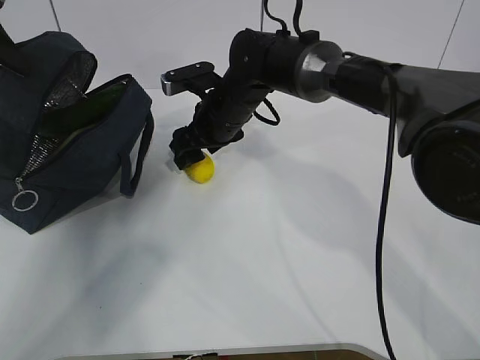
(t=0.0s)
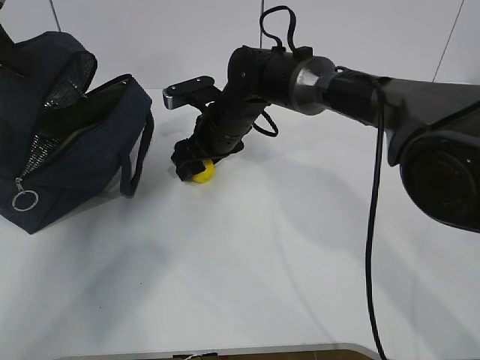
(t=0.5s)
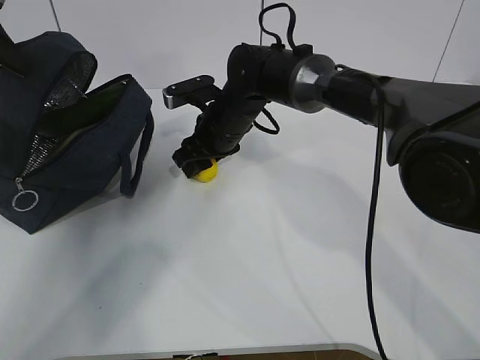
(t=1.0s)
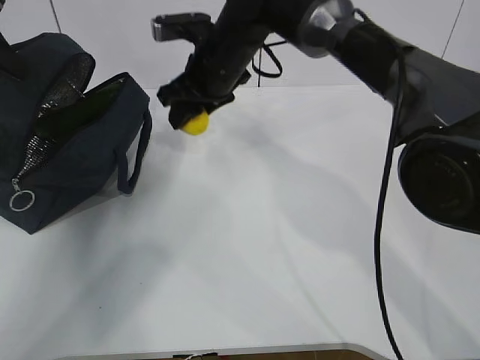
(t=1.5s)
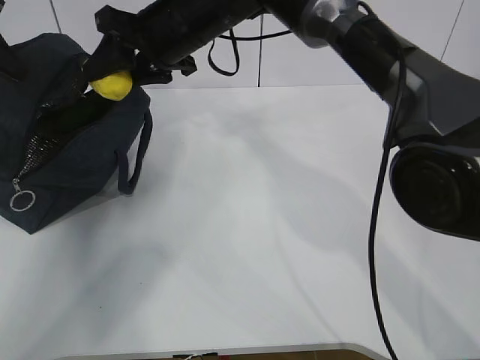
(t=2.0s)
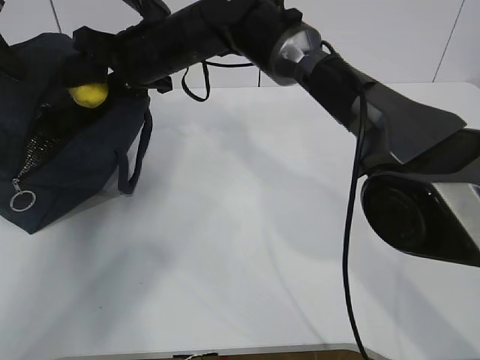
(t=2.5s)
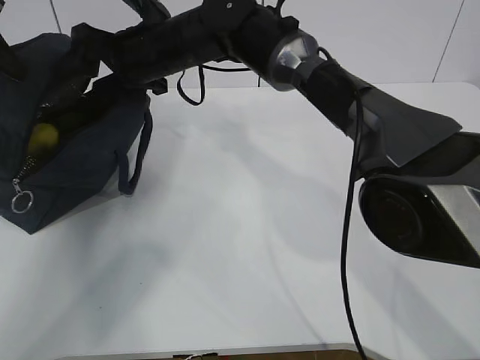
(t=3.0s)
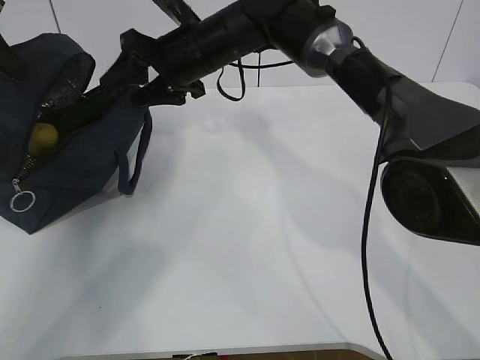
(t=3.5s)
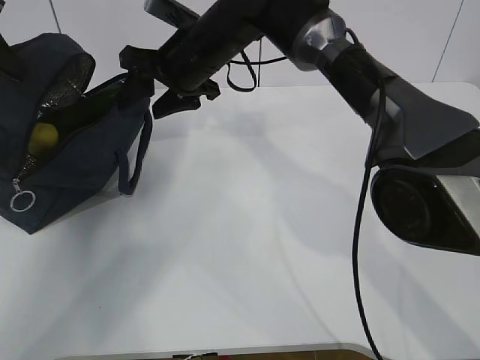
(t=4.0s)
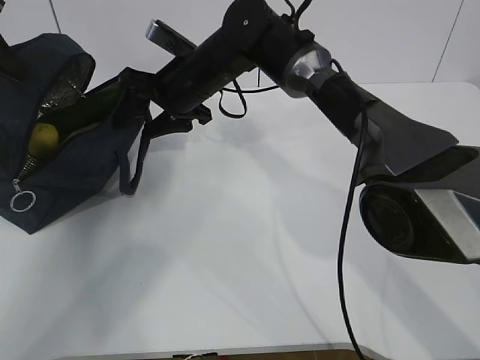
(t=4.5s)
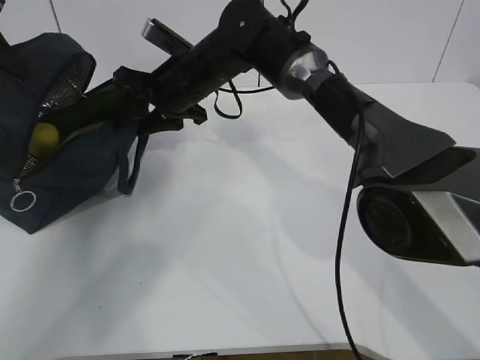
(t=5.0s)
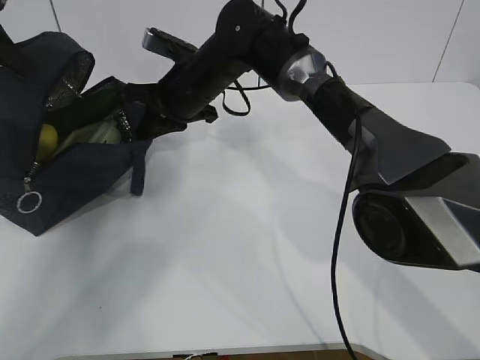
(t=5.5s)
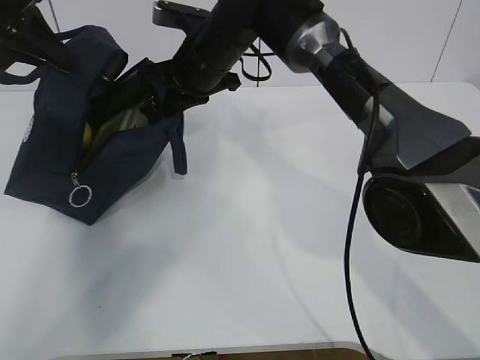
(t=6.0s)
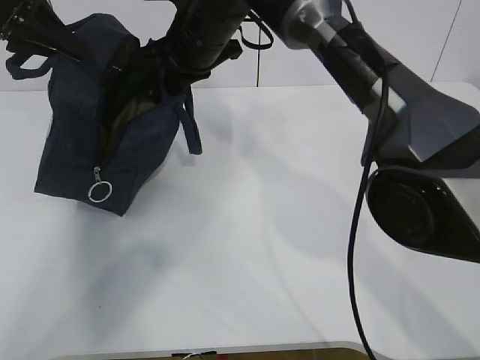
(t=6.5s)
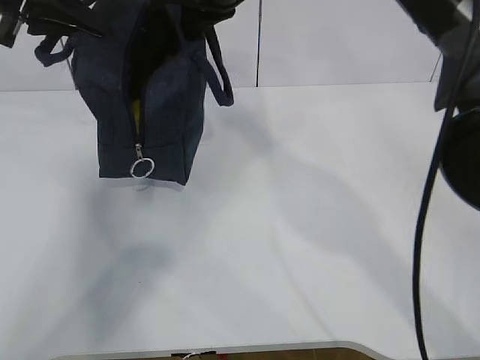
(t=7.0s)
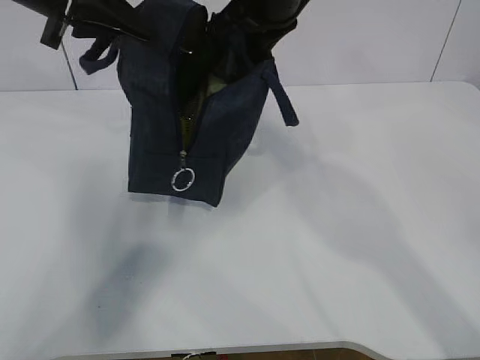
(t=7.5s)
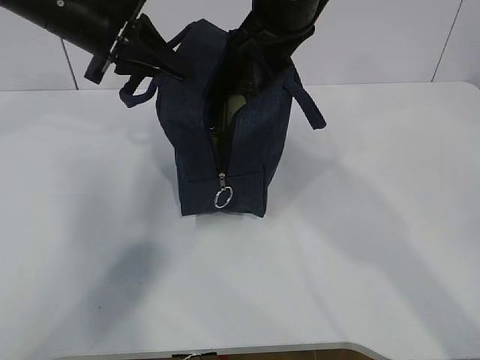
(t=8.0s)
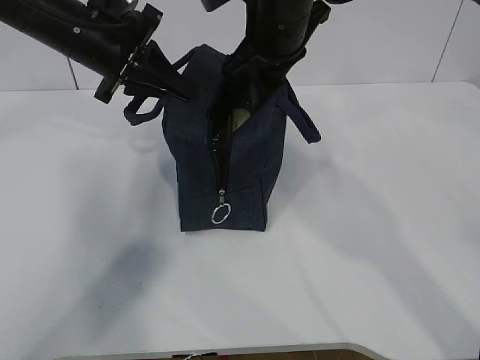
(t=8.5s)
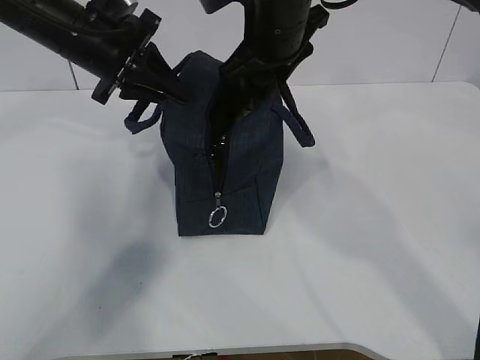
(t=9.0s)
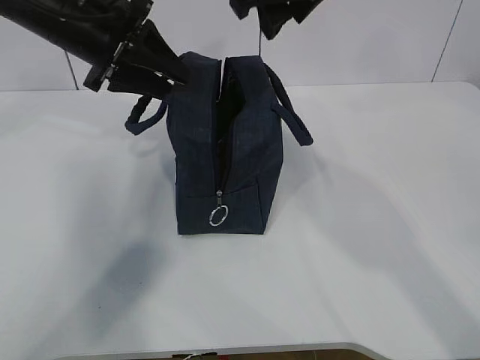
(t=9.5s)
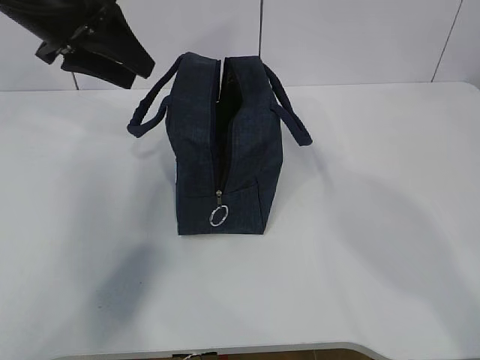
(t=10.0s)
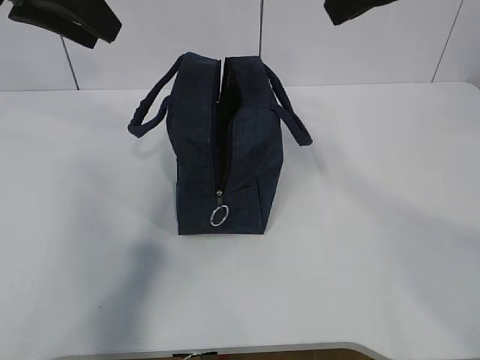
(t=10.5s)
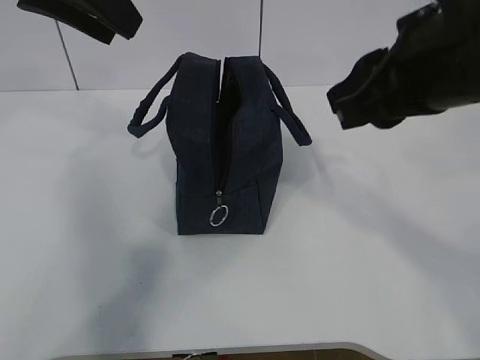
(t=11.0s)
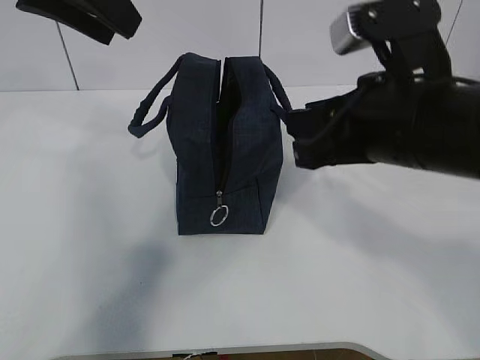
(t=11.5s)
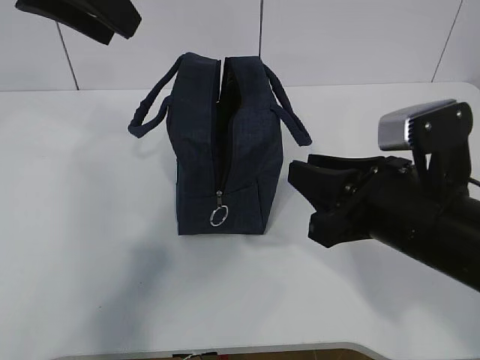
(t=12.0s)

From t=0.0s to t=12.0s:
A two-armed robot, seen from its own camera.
Step, from t=0.0s to t=2.5s: Move the lunch bag to the right.
From t=0.0s to t=2.0s: The right gripper heads upward, covering roughly 10 cm, and closes its fingers.
From t=2.0s to t=4.0s: The grippers stay close to where they were, moving slightly.
From t=4.0s to t=6.0s: The right gripper closes, while the left gripper moves to the right, approximately 5 cm.
From t=6.0s to t=8.0s: The right gripper goes roughly 15 cm upward, to the right and backward, while the left gripper heads to the right, covering some 10 cm.
From t=8.0s to t=10.0s: The right gripper is displaced upward and backward by roughly 10 cm, and opens up, while the left gripper opens.
From t=10.0s to t=12.0s: The left gripper travels upward and backward by roughly 10 cm, while the right gripper goes approximately 25 cm downward and backward.

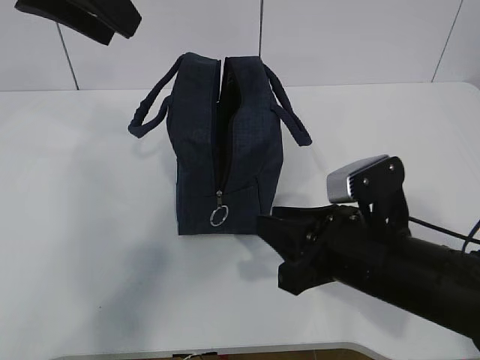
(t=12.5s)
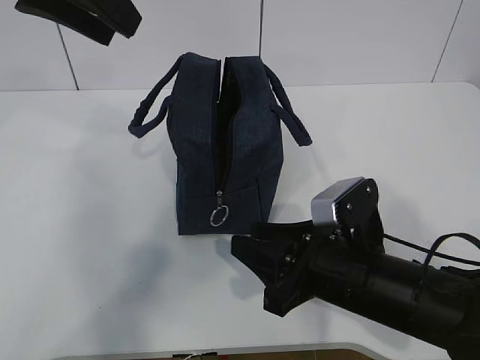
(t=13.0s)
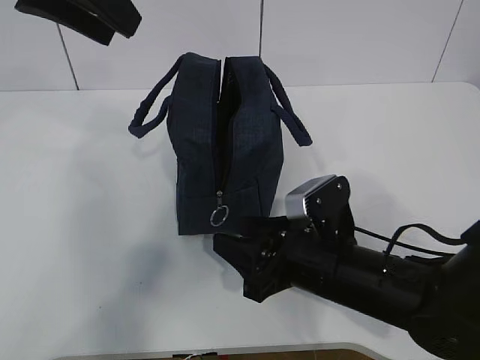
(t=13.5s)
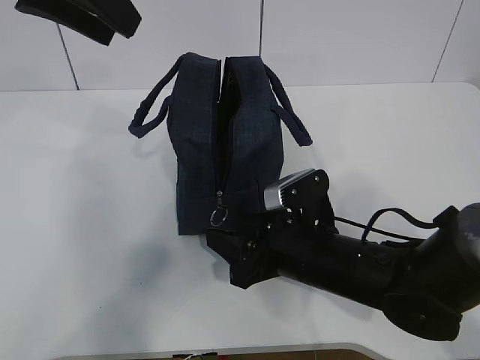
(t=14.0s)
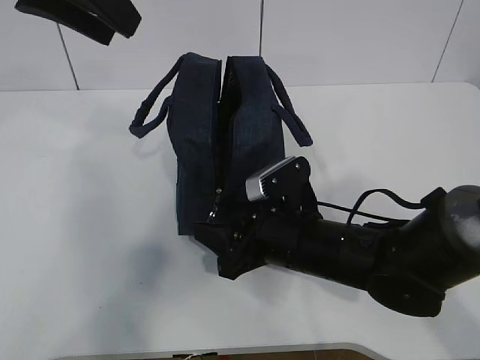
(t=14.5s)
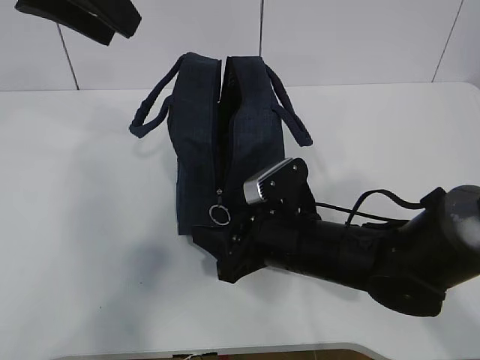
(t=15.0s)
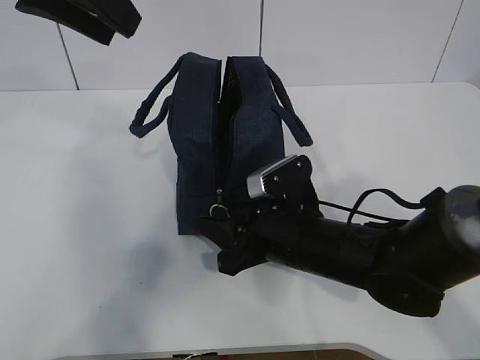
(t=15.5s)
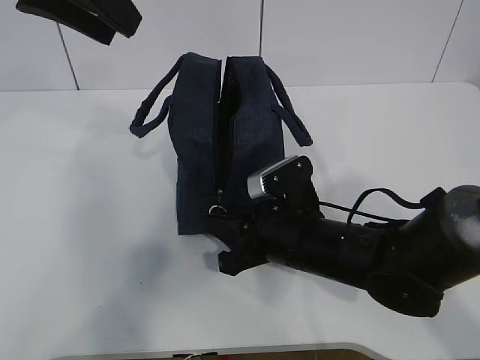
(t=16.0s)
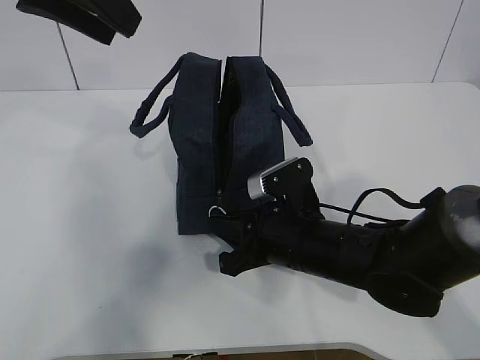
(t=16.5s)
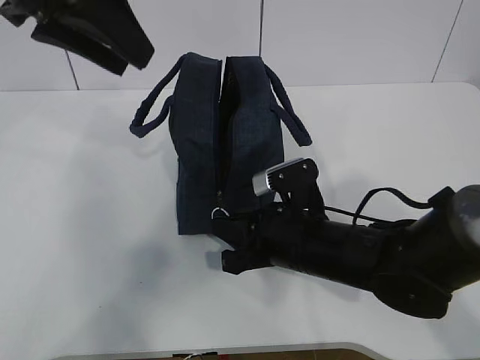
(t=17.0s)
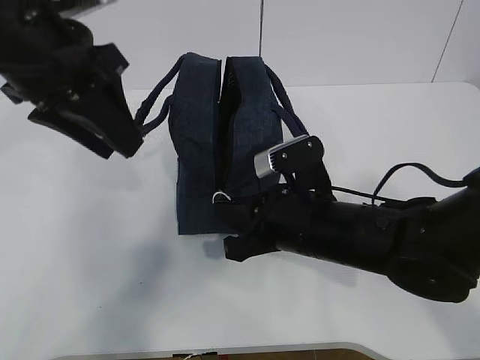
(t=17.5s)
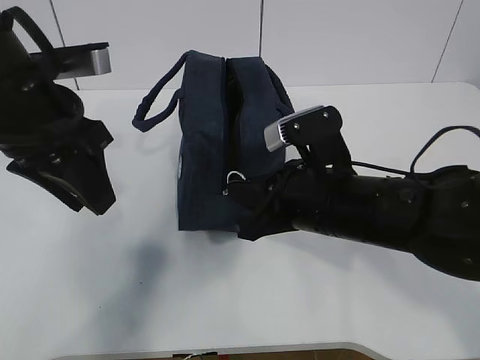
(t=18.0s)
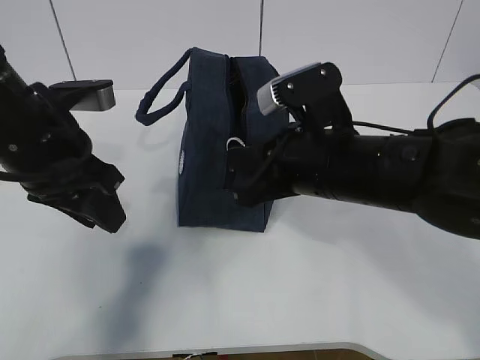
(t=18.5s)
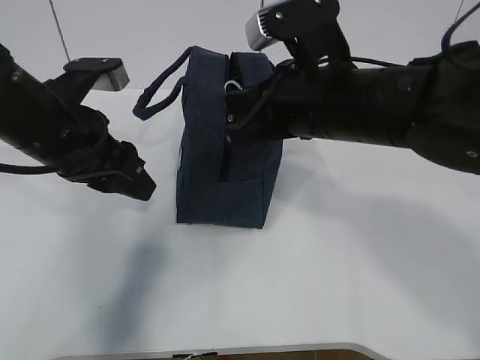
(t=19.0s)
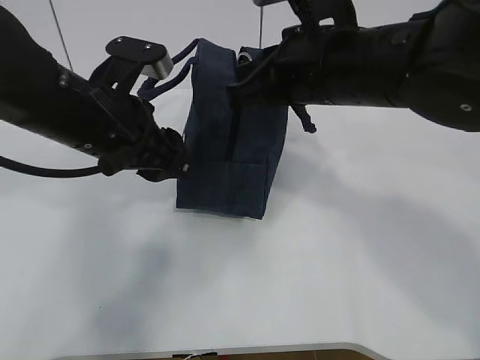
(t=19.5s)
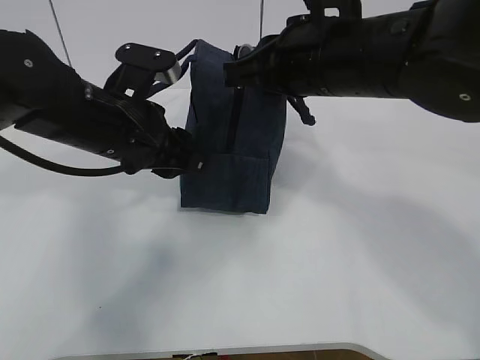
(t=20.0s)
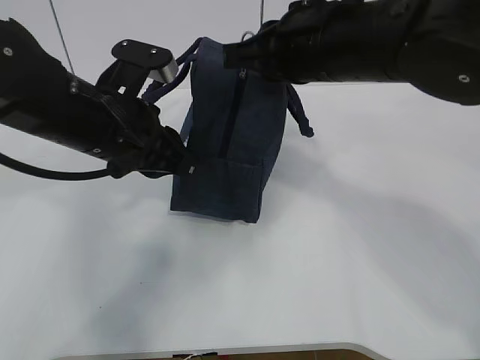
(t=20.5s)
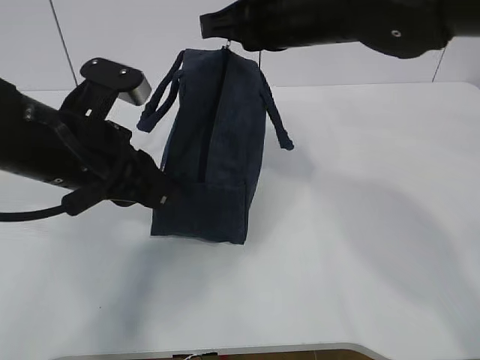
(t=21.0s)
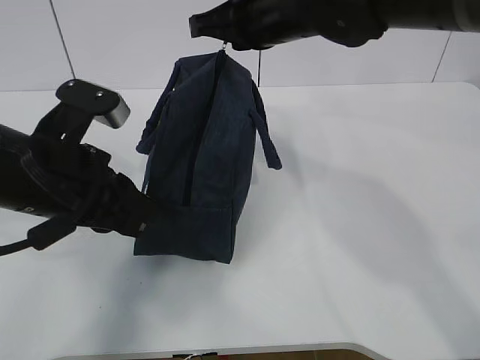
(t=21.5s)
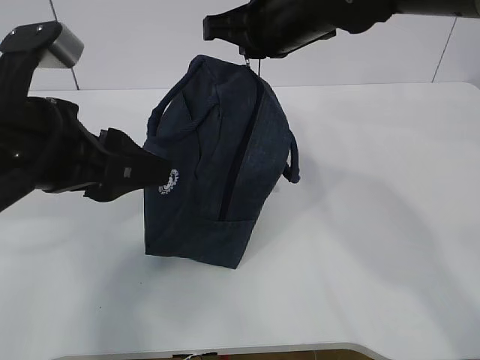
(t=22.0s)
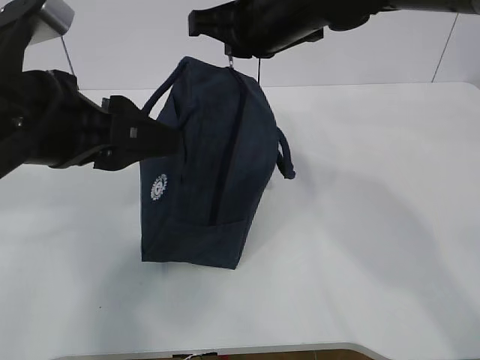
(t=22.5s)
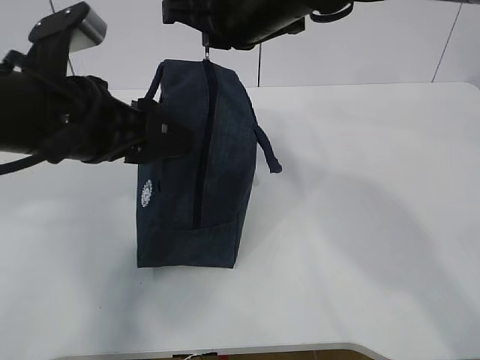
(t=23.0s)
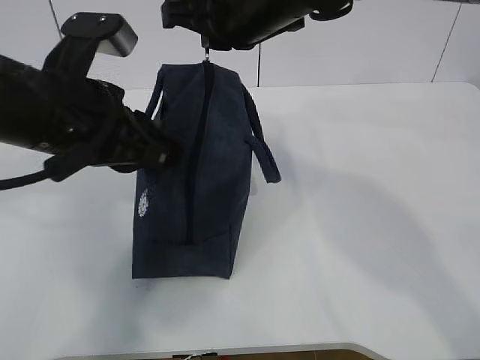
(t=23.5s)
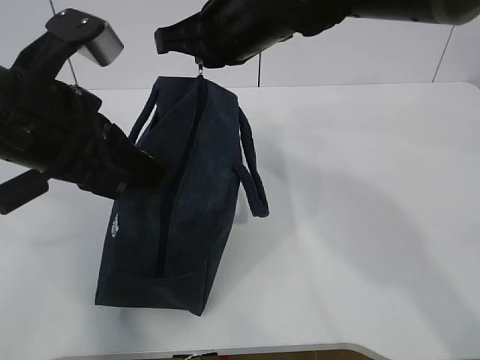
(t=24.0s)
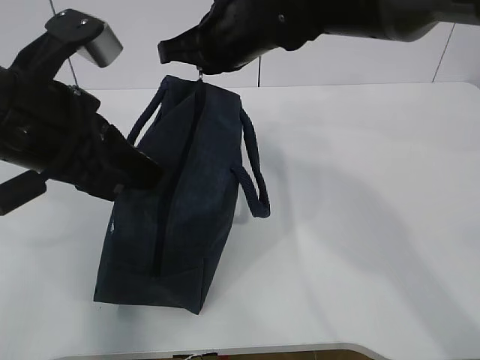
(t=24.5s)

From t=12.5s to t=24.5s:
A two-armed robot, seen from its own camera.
Step, from t=13.0s to t=23.0s: Pull the zipper with your right hand.
From t=12.5s to t=14.5s: The right gripper moves forward and to the left, about 10 cm.
From t=14.5s to t=16.5s: The right gripper closes its fingers.
From t=16.5s to t=18.5s: The right gripper moves upward, some 10 cm; the left gripper travels downward by approximately 15 cm.
From t=18.5s to t=20.5s: The right gripper shifts approximately 10 cm upward, while the left gripper travels to the right by some 5 cm, and closes.
From t=20.5s to t=22.5s: The left gripper heads backward and upward, covering some 10 cm, and opens up. The right gripper is displaced forward by some 5 cm.
From t=22.5s to t=24.5s: The left gripper closes.

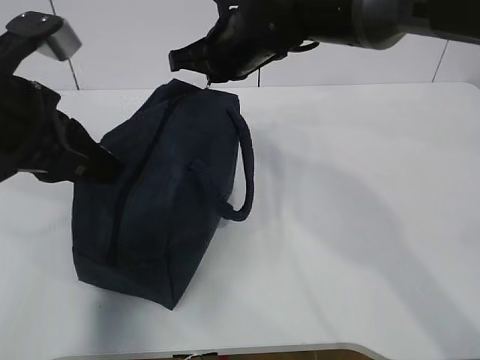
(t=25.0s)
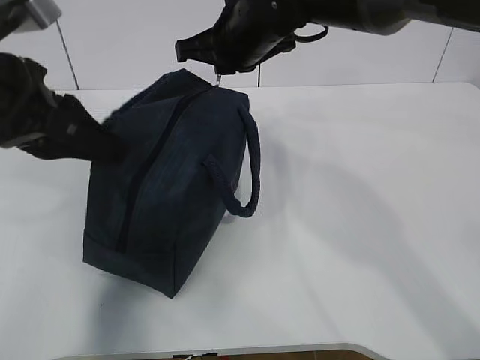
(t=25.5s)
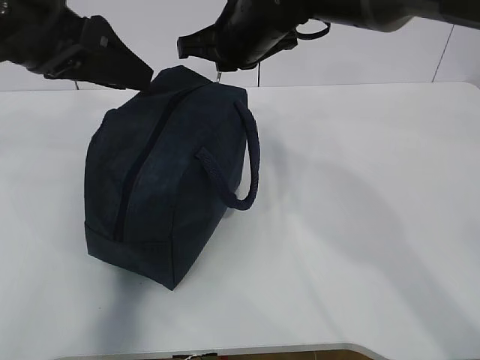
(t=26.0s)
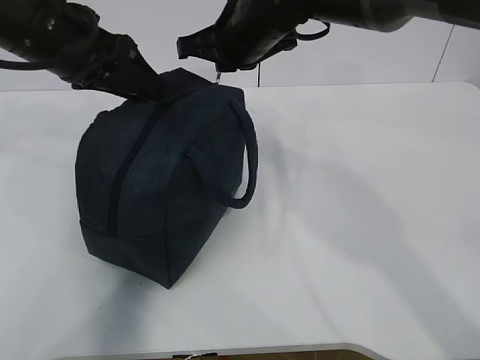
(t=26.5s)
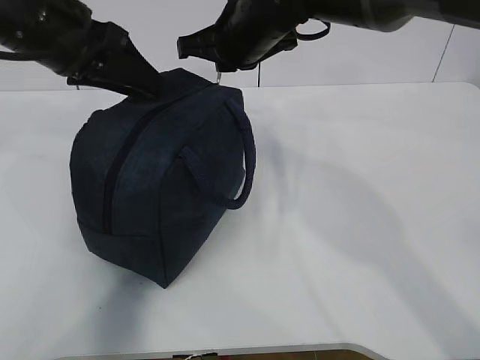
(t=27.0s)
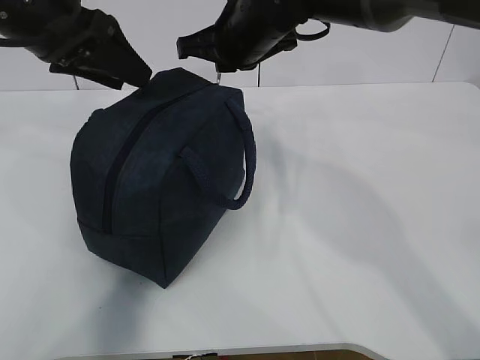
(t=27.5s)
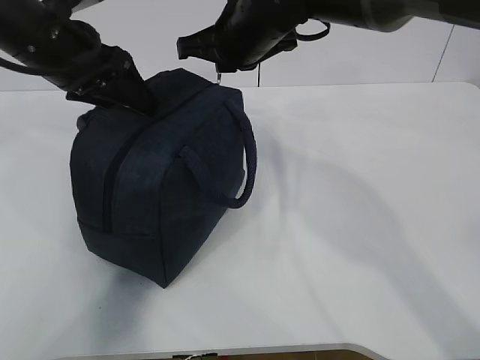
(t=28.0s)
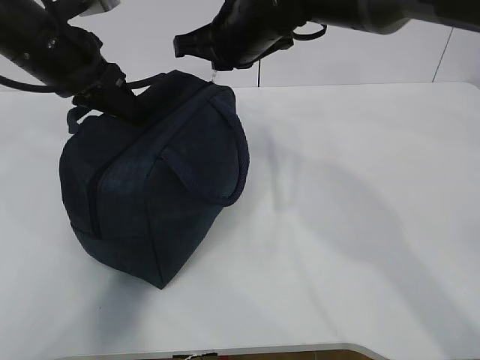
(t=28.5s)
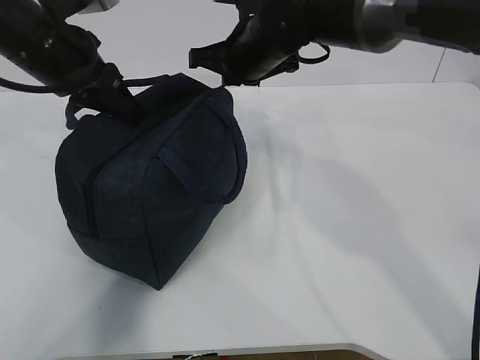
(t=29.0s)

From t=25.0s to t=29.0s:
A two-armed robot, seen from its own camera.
From t=25.0s to t=27.0s: The left gripper is displaced forward by some 10 cm, and opens.
From t=27.0s to t=29.0s: The left gripper closes up.
